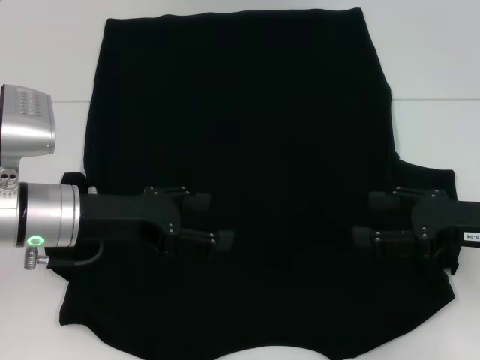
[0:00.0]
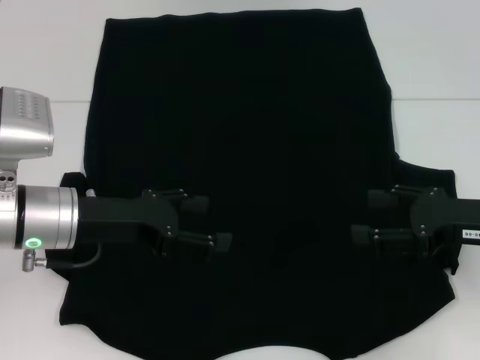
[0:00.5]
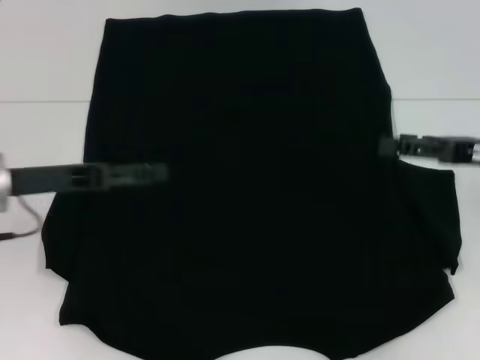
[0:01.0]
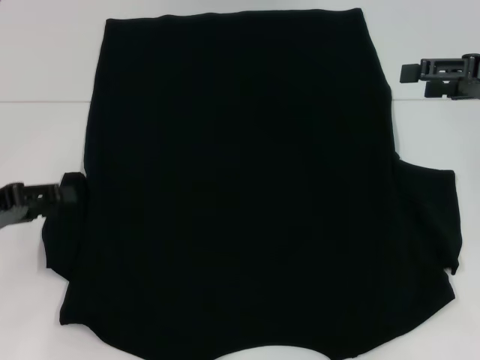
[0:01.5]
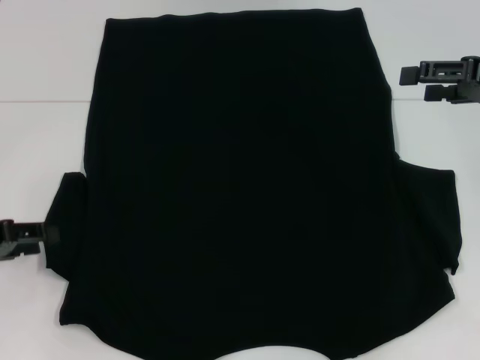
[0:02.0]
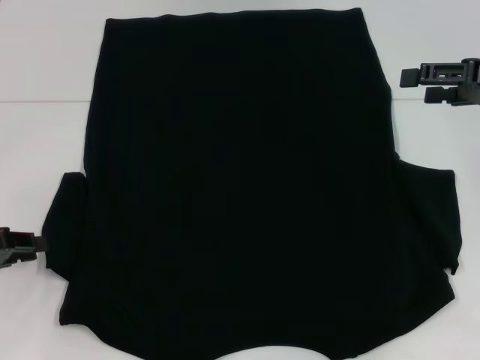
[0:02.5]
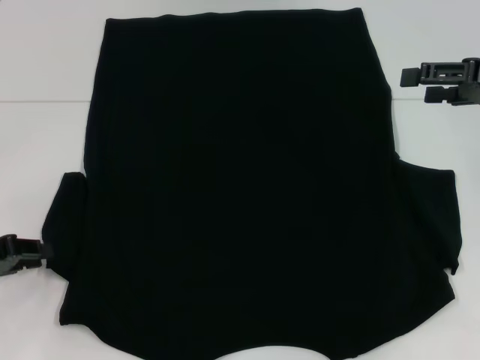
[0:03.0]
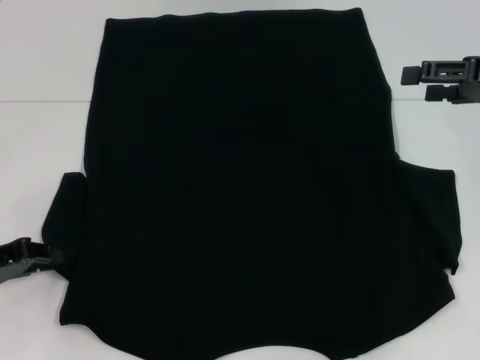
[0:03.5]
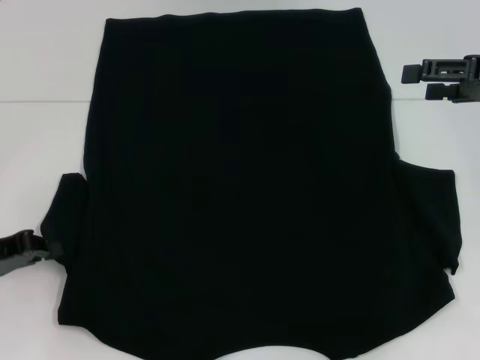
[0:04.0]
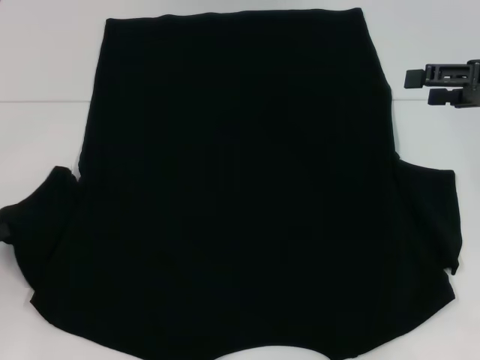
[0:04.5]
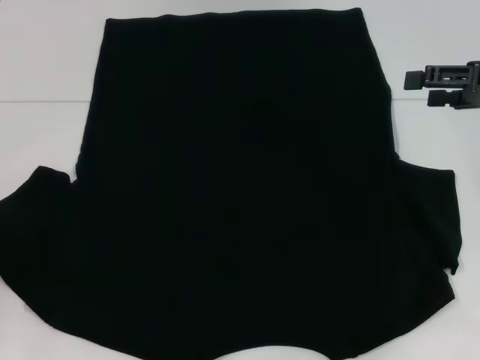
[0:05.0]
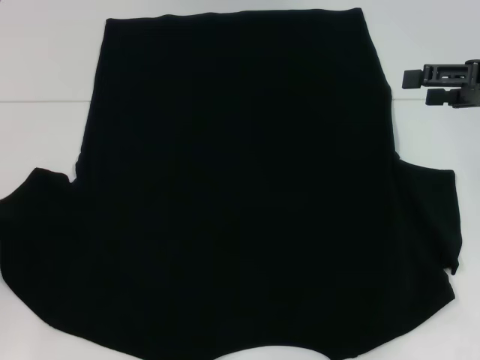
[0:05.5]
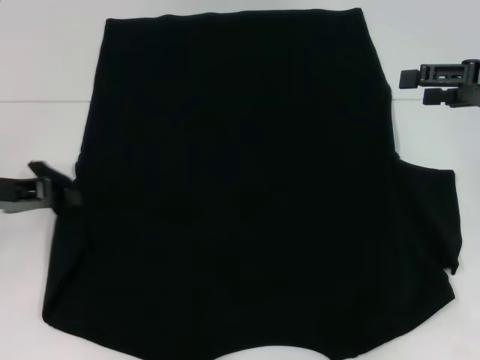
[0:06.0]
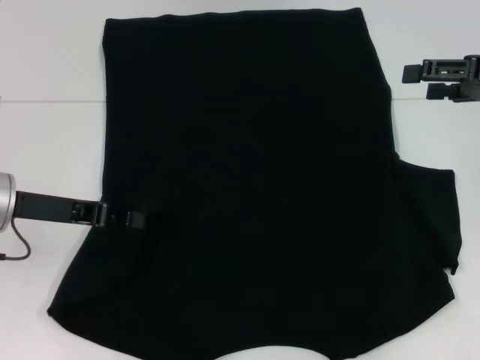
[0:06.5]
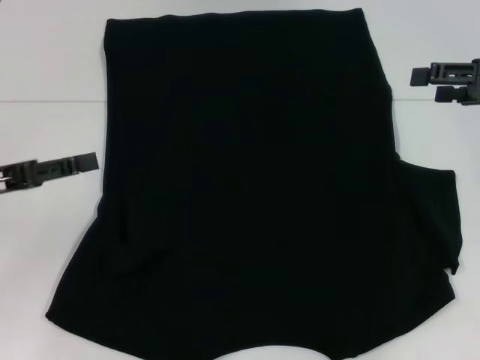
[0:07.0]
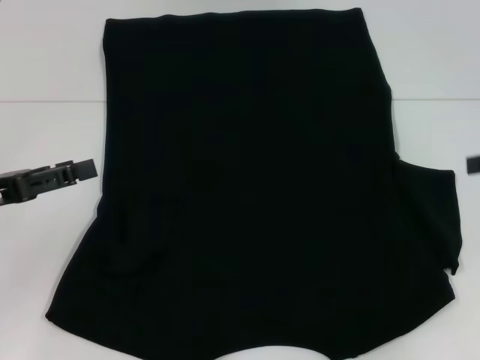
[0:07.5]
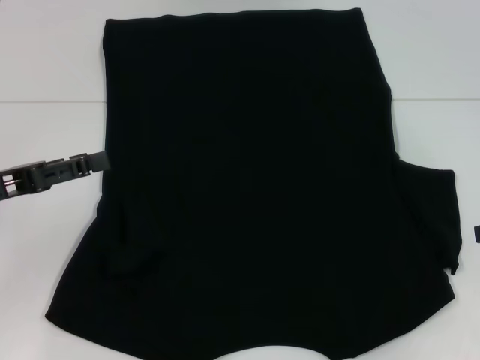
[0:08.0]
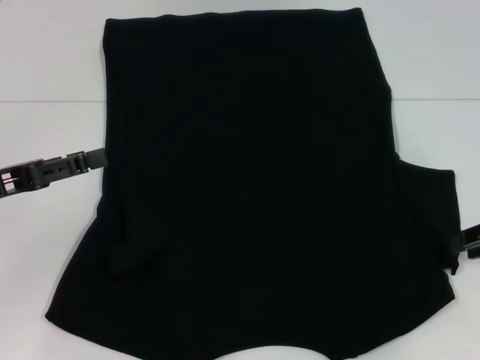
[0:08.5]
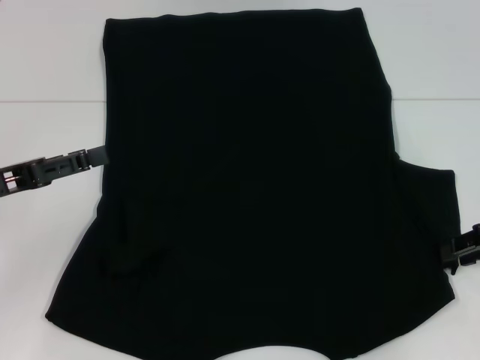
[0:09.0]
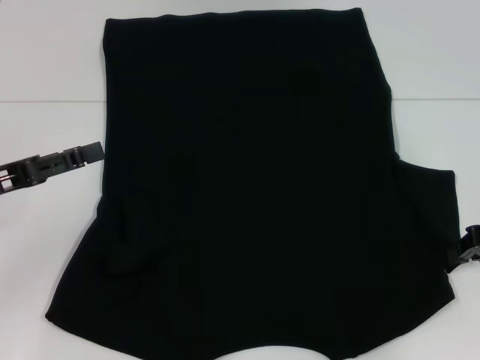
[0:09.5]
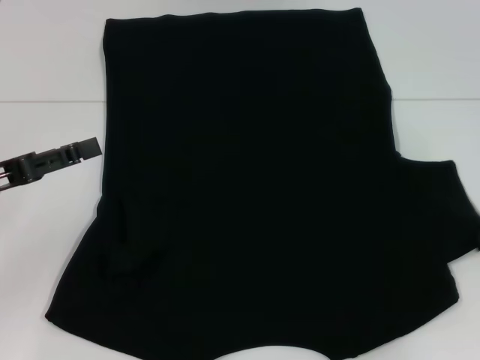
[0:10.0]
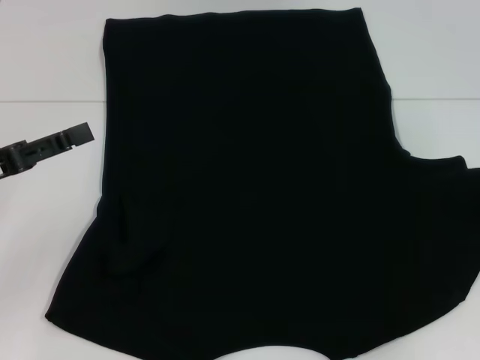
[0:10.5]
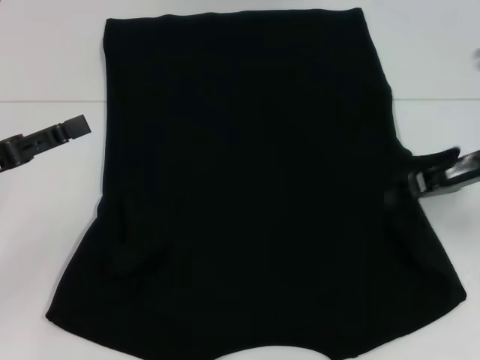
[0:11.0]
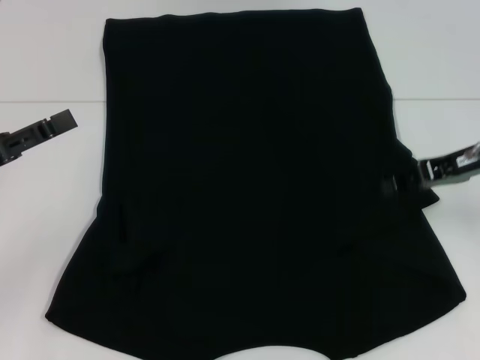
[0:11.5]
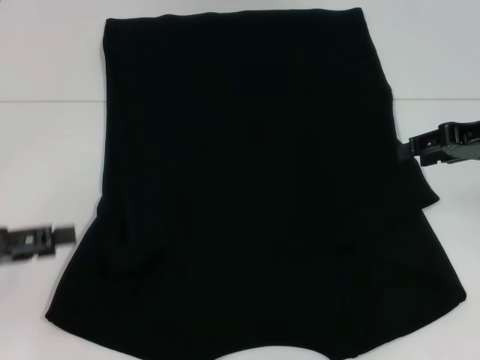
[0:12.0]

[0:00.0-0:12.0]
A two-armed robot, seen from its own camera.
Step, 0.0 to 7.0 s: Fold the bottom left sleeve with your left hand.
Step, 7.5 to 11.5 s: Fold the bottom right sleeve with your right hand.
0.0 to 2.0 s: The right gripper travels upward and forward by about 15 cm; the left gripper travels to the left by about 15 cm, and closes up.
2.0 to 4.0 s: The left gripper closes.
4.0 to 6.0 s: The left gripper moves upward and forward, approximately 5 cm, and moves some 5 cm to the left and comes back.
6.0 to 8.0 s: The left gripper opens up; the right gripper heads backward, to the right and downward, covering approximately 10 cm.
8.0 to 10.0 s: The right gripper closes up.
10.0 to 12.0 s: The right gripper heads upward, to the left and forward, covering roughly 10 cm, and opens.

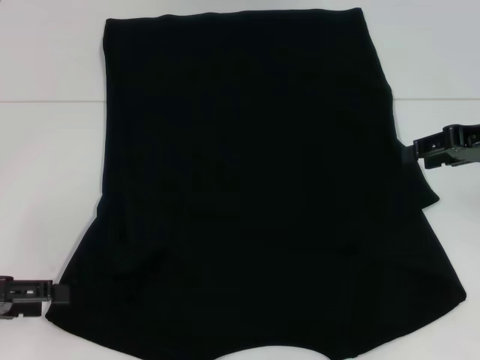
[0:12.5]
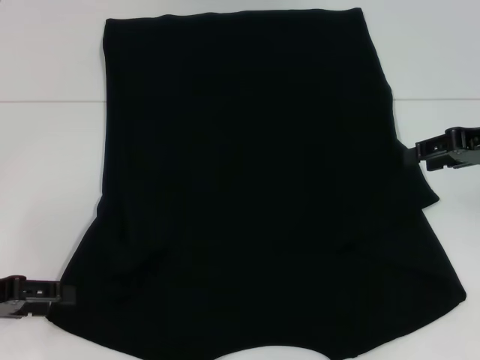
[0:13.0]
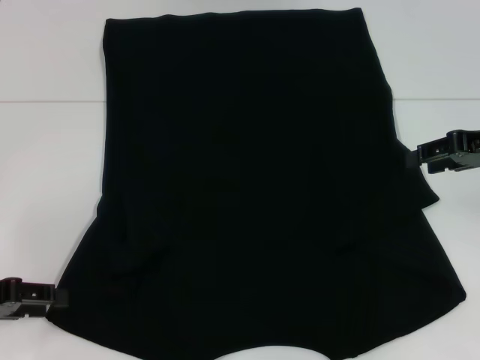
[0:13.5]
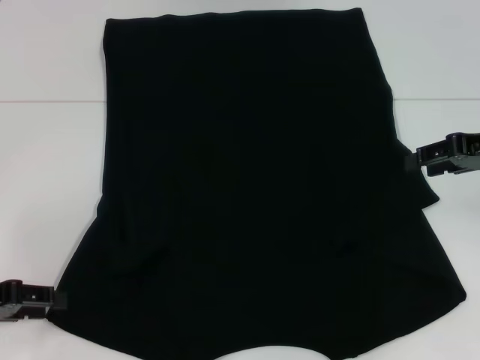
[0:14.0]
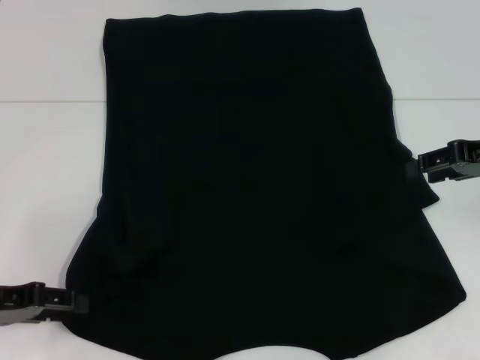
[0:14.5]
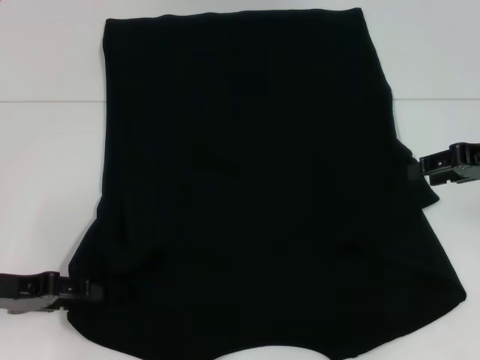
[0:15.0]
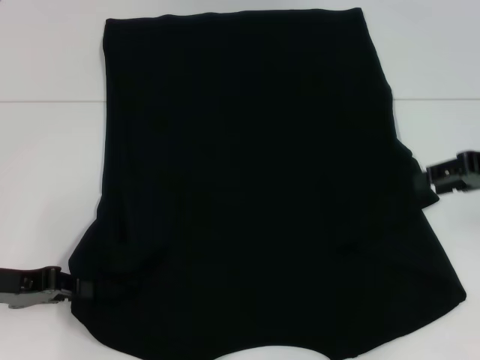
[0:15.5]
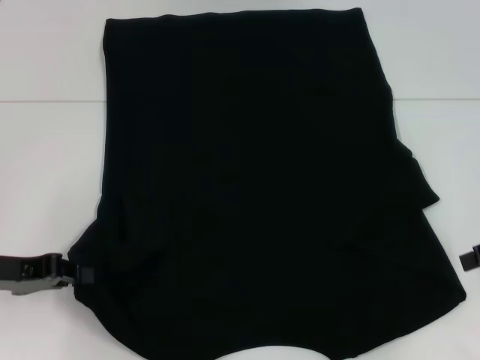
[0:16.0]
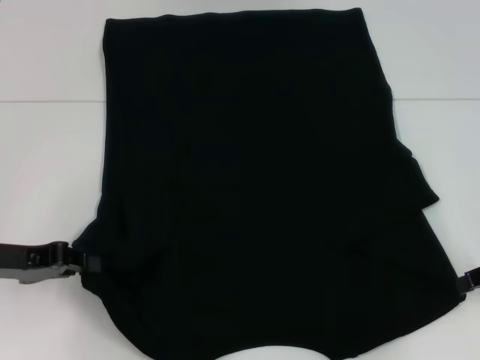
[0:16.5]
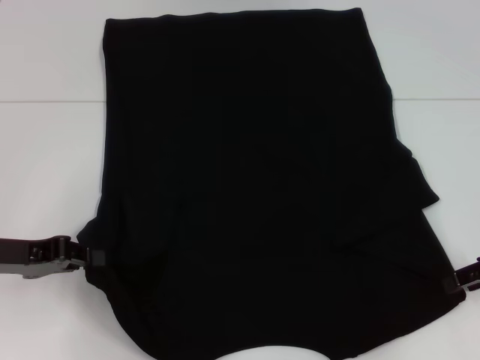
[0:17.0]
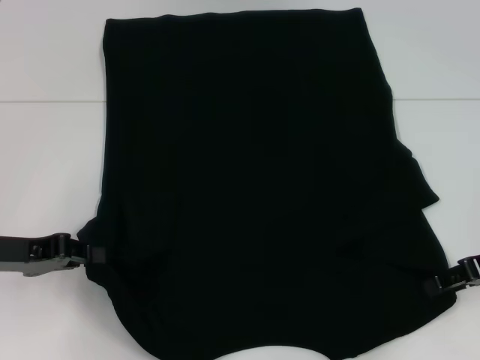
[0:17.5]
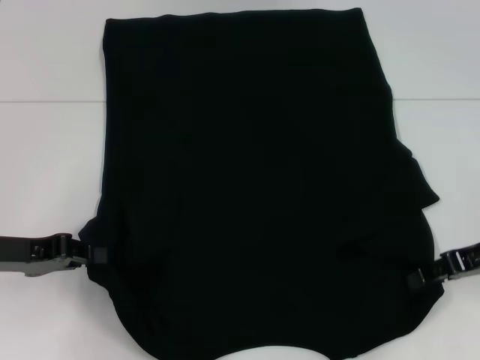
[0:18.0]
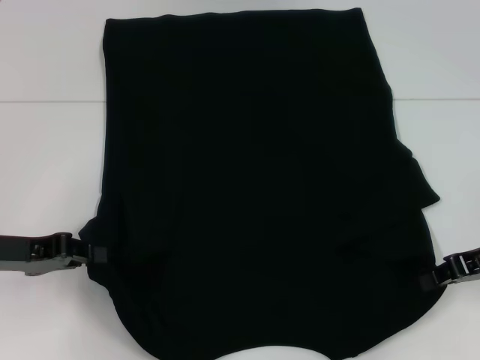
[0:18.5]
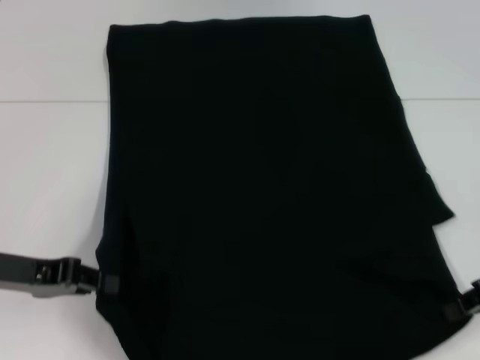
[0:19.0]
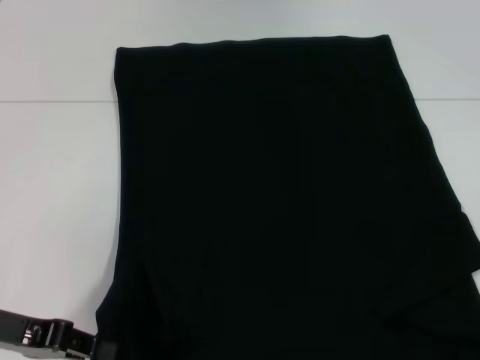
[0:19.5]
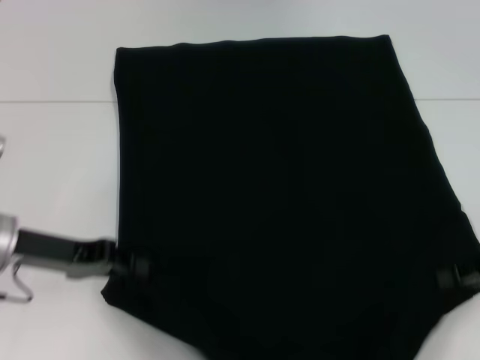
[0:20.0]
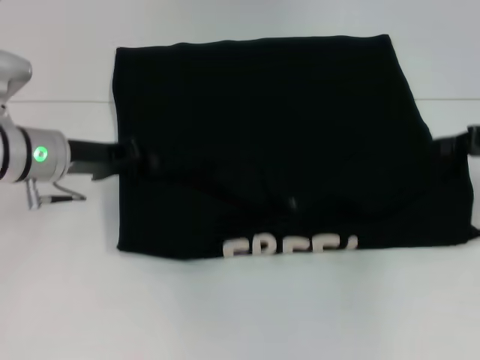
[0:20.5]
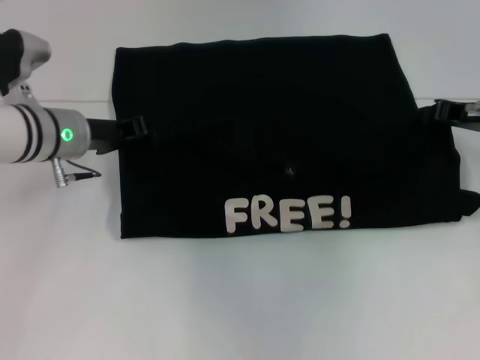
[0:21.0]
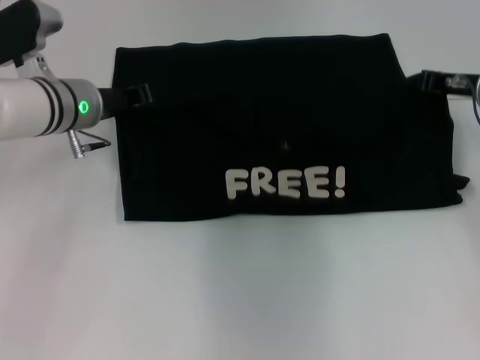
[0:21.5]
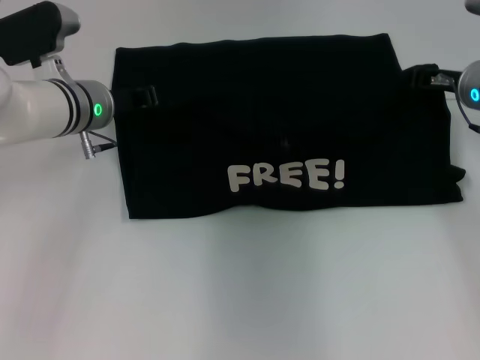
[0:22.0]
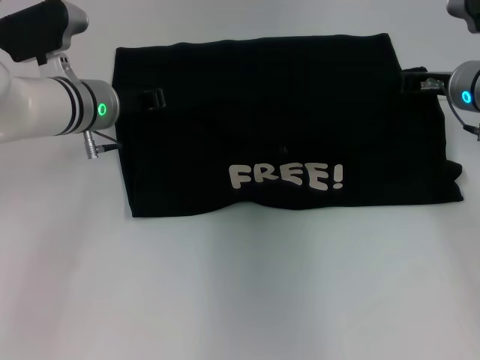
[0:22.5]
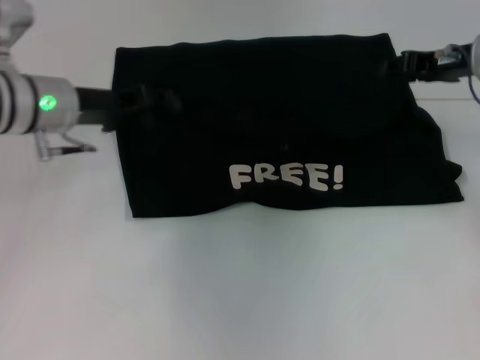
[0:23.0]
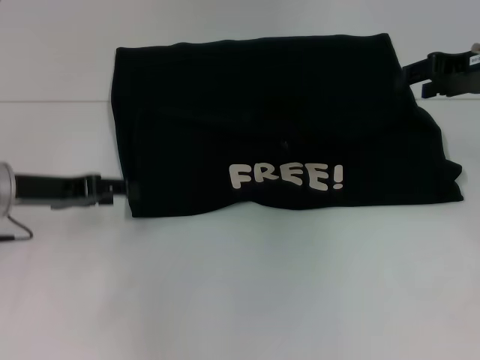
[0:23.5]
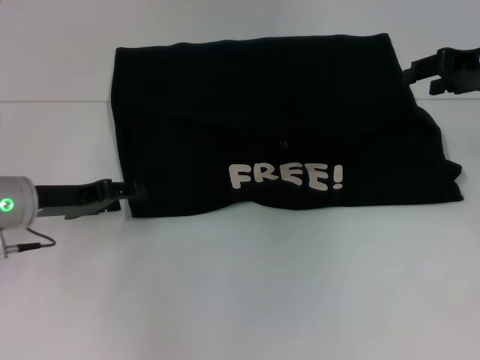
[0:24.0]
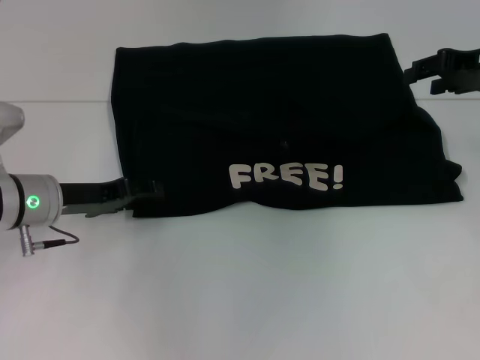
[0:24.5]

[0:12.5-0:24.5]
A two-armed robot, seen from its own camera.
Step, 12.5 to 18.0 s: Grab the bottom left corner with your left hand.
Step, 12.5 to 18.0 s: Grab the bottom right corner with your right hand.
Step, 18.5 to 23.0 s: Fold the clothes with your left hand.
Step, 18.5 to 23.0 s: Fold the clothes with your right hand.
12.5 to 14.5 s: The grippers move only a little.
14.5 to 16.5 s: The right gripper heads backward, covering roughly 5 cm. The left gripper closes.
16.5 to 18.5 s: The right gripper closes.
18.5 to 20.5 s: The left gripper moves forward and to the right, some 10 cm; the right gripper goes about 5 cm forward.
20.5 to 22.5 s: The left gripper travels to the right and forward by some 10 cm. The right gripper travels to the left and forward by roughly 10 cm.
22.5 to 24.5 s: The right gripper is displaced upward and to the right by some 10 cm, and opens; the left gripper goes approximately 10 cm backward, to the left and downward, and opens up.

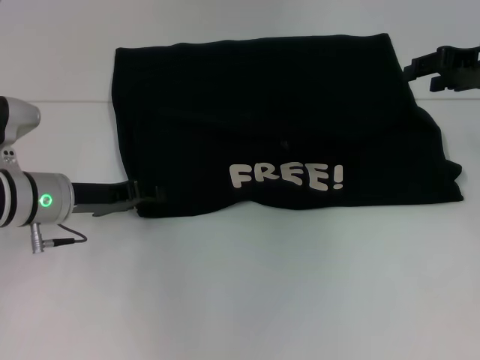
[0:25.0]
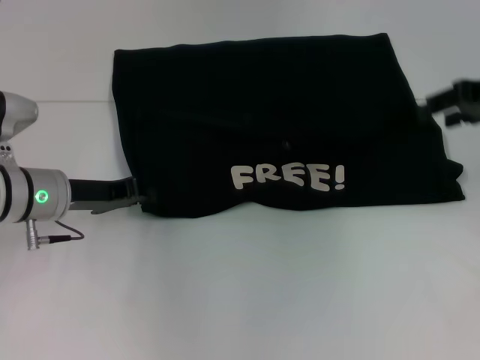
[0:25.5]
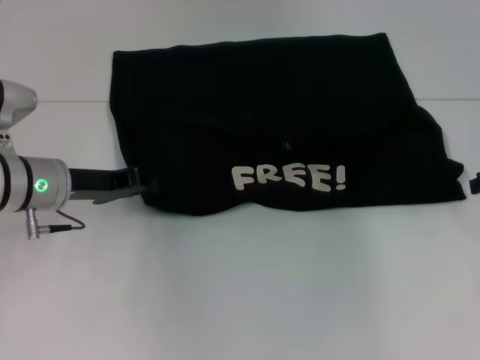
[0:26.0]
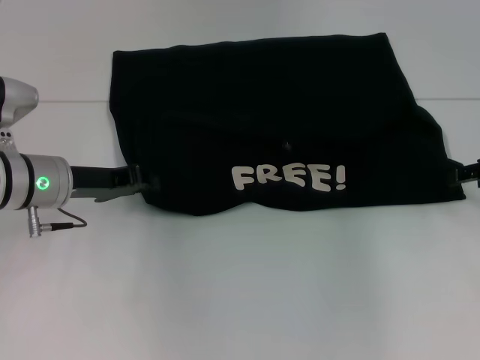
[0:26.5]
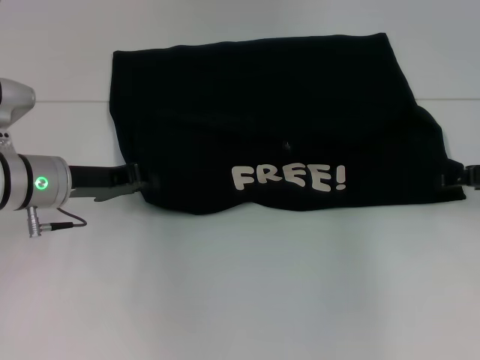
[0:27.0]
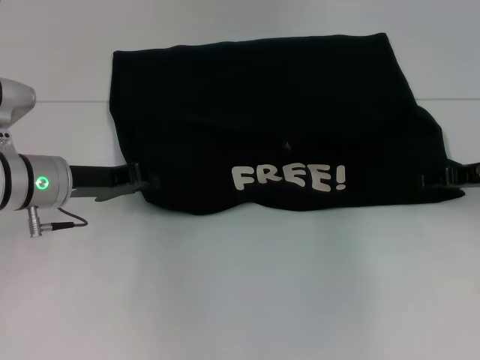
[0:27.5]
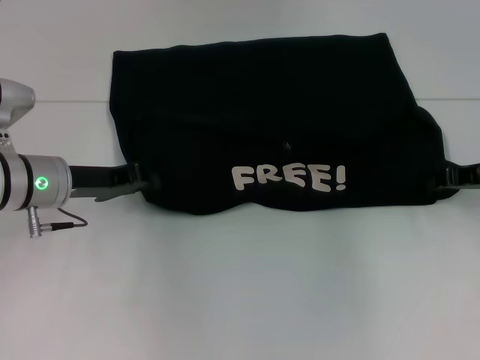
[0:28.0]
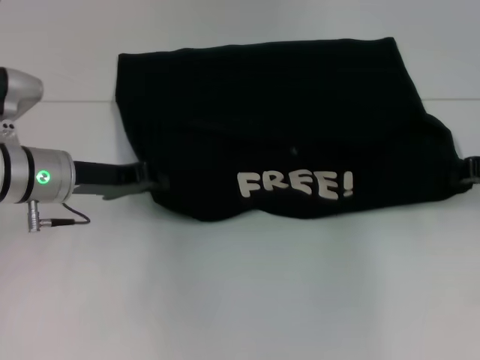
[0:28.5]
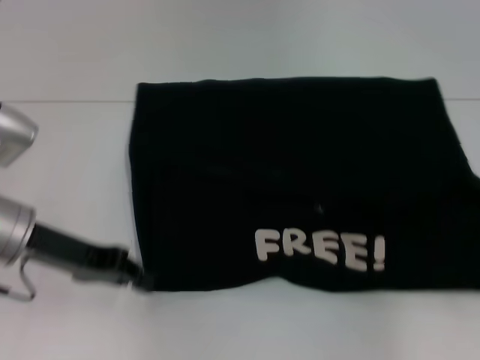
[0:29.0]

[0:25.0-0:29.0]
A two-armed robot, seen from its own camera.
25.0 to 27.0 s: The right gripper heads downward and backward, covering about 10 cm. Meanwhile the left gripper closes up.
27.0 to 29.0 s: Both grippers travel together backward, some 5 cm. The right gripper closes.
